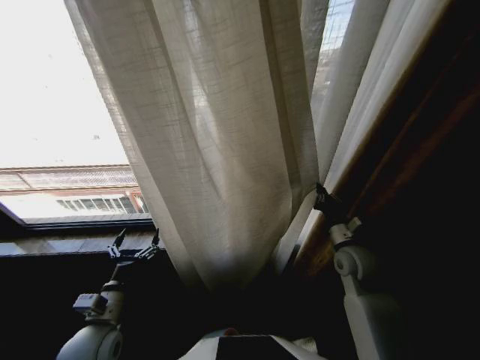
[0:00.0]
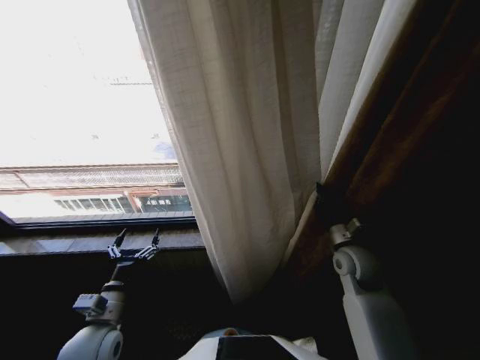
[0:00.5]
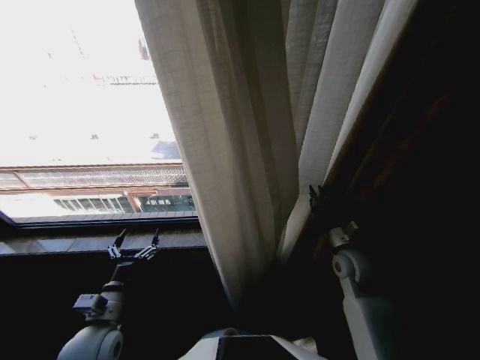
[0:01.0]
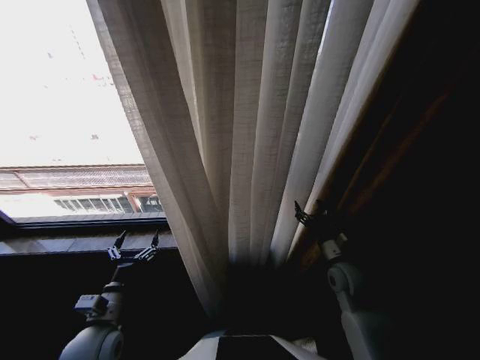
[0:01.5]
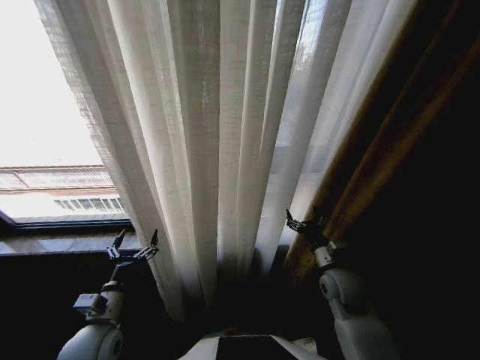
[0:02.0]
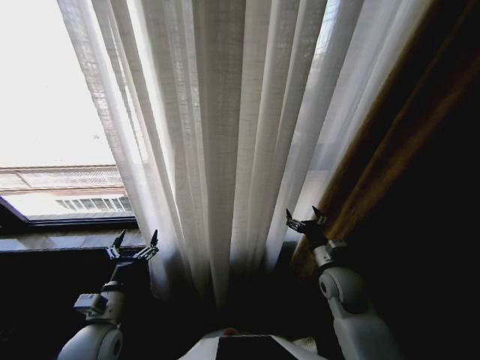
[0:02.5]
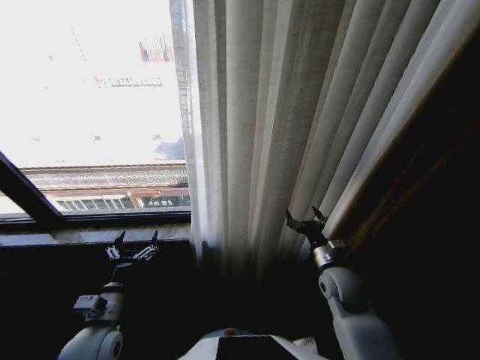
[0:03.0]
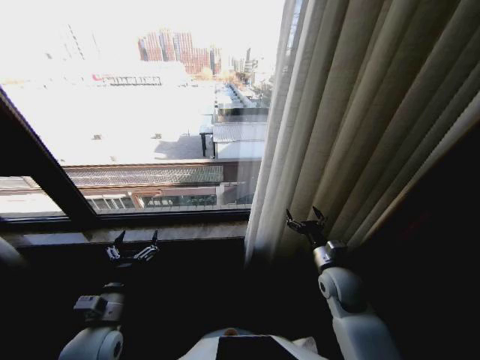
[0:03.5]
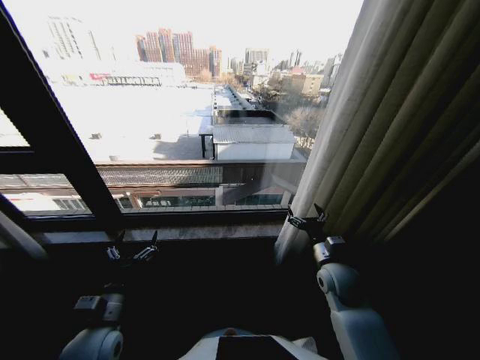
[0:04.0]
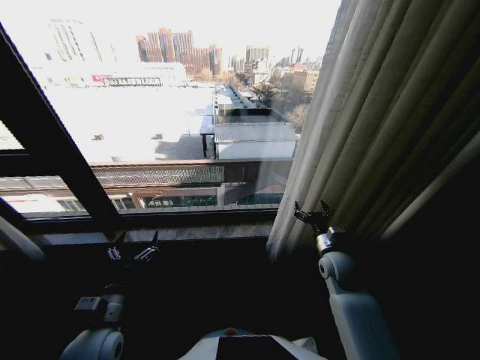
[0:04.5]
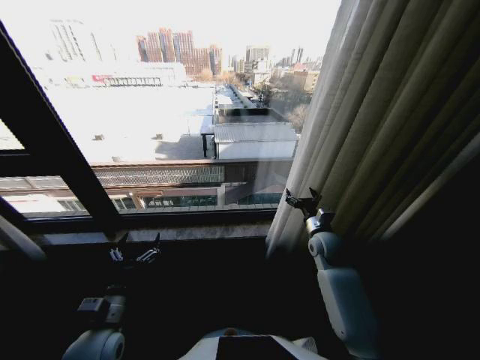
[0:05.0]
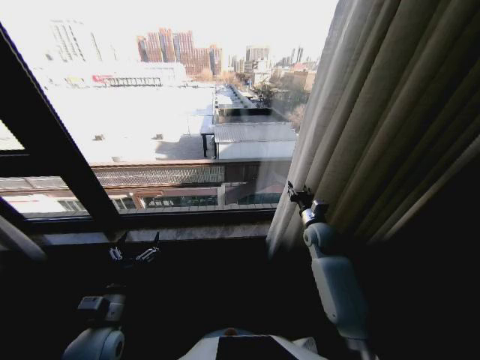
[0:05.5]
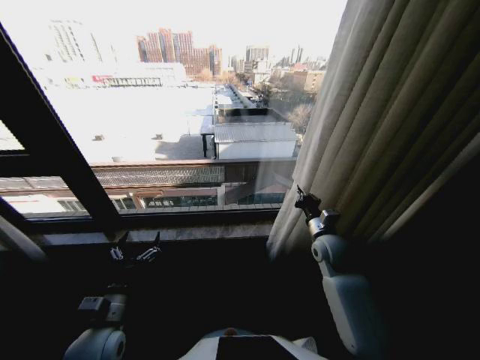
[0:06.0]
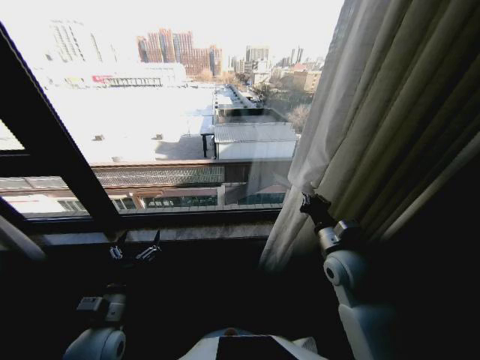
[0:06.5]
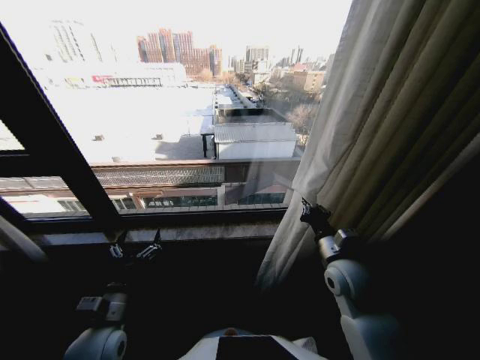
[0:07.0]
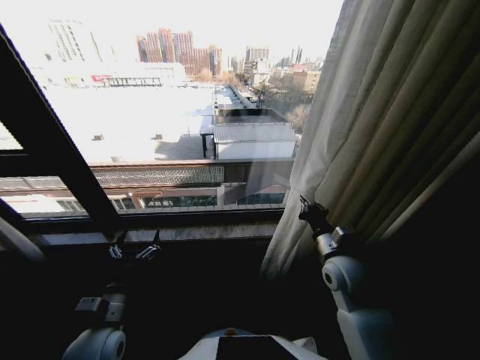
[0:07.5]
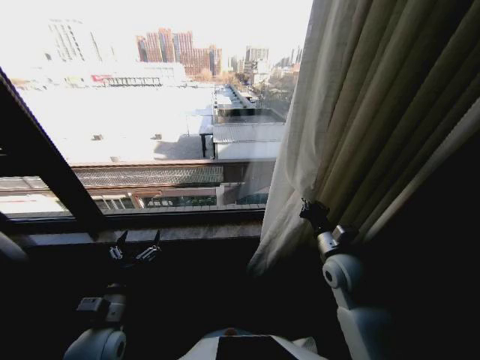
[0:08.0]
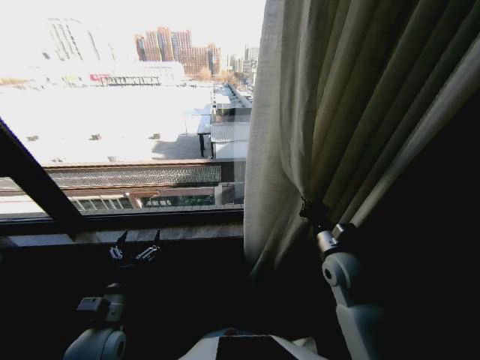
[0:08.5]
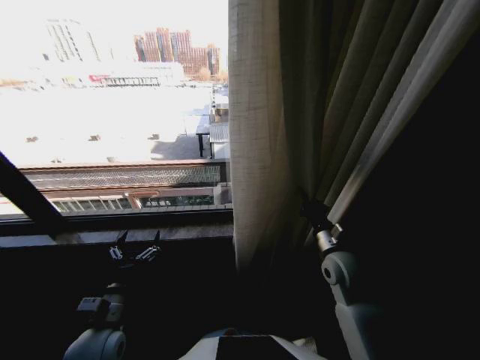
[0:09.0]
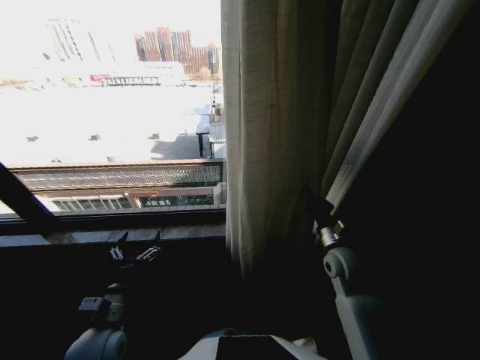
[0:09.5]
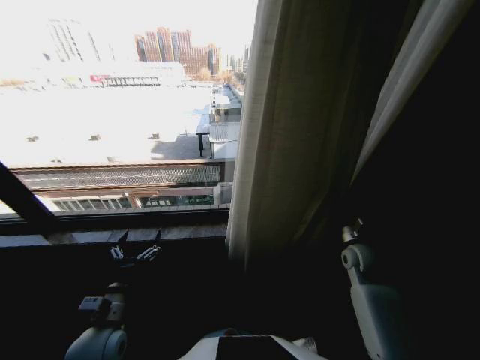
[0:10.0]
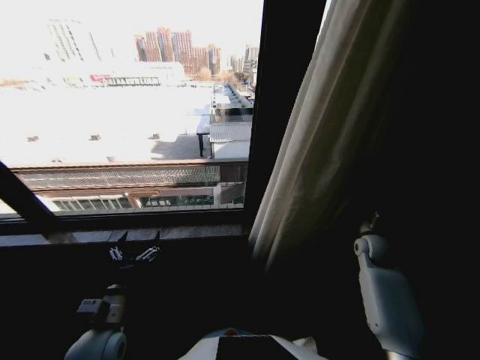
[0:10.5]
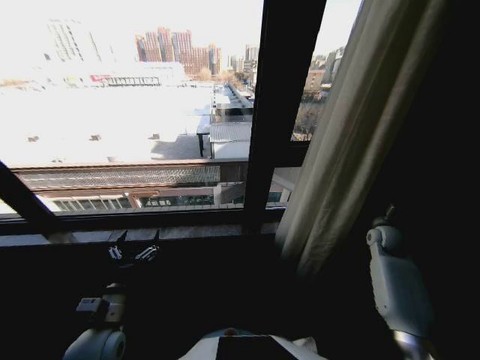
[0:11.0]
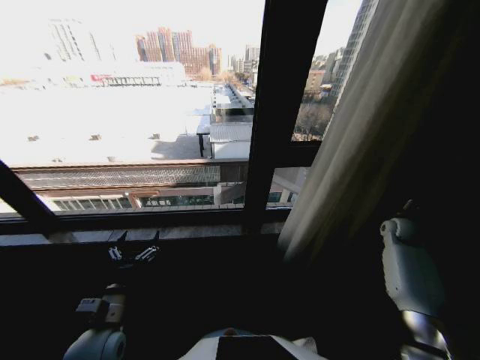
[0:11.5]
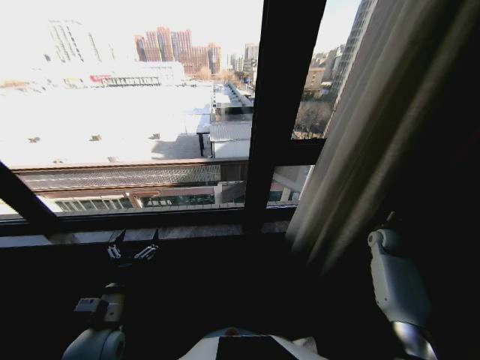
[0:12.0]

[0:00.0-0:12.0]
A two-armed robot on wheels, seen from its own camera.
Task of the whole recording: Open the curtains by pulling them apart, changing their state from closed to fully open.
0:00.0 to 0:02.0: The right gripper moves downward, roughly 5 cm, and opens up.
0:04.0 to 0:06.0: The right gripper moves forward, roughly 10 cm, and closes.
0:06.0 to 0:08.0: The right gripper moves backward, about 10 cm.
0:08.0 to 0:10.0: The right gripper goes some 10 cm to the right.
0:10.0 to 0:12.0: The right gripper goes roughly 20 cm to the right and forward.

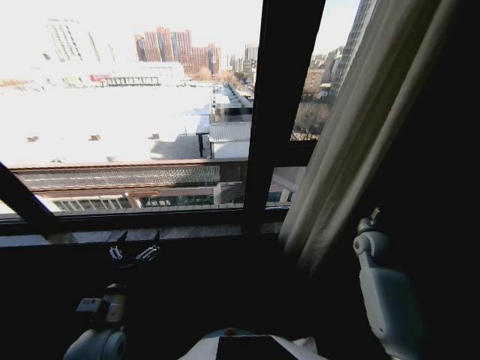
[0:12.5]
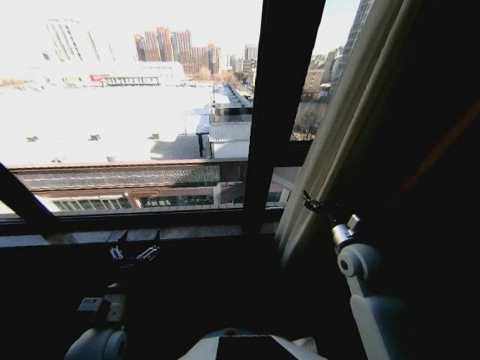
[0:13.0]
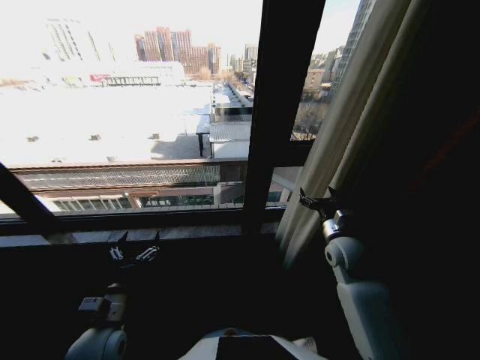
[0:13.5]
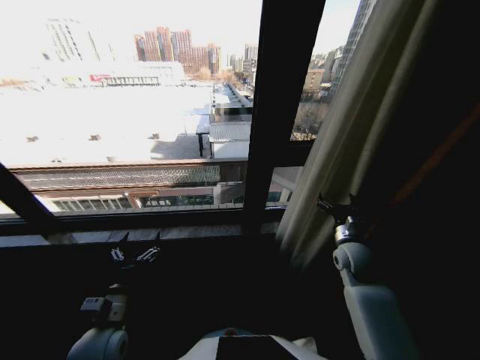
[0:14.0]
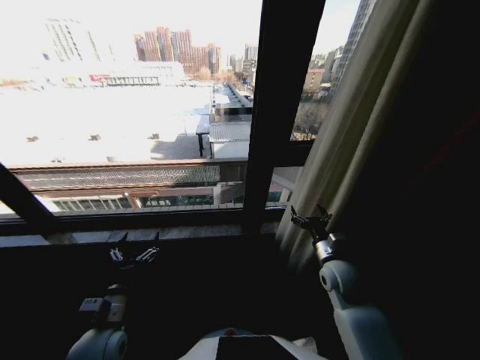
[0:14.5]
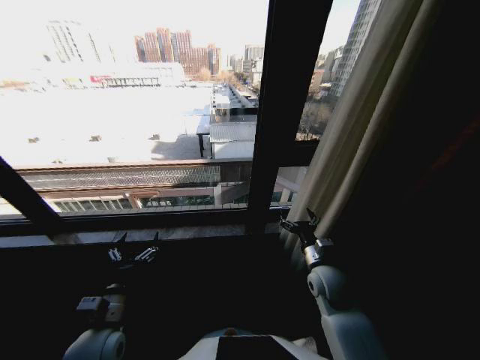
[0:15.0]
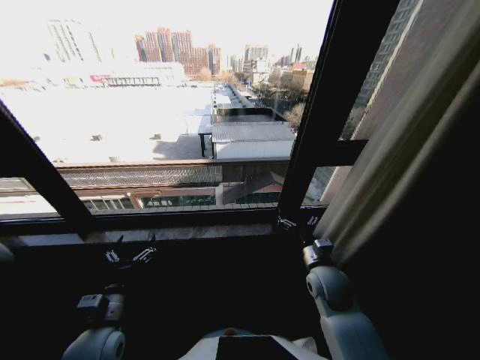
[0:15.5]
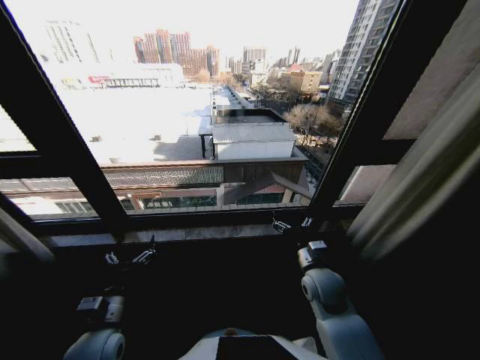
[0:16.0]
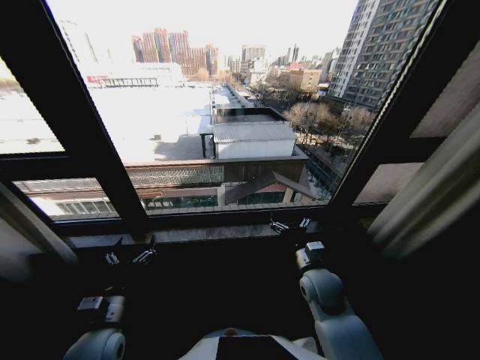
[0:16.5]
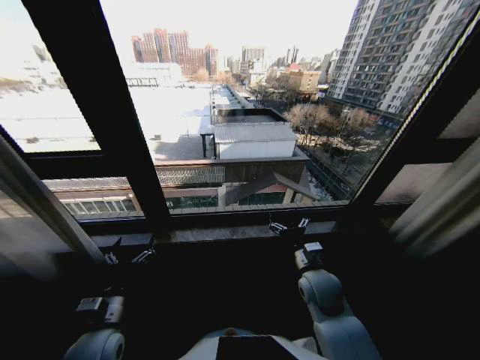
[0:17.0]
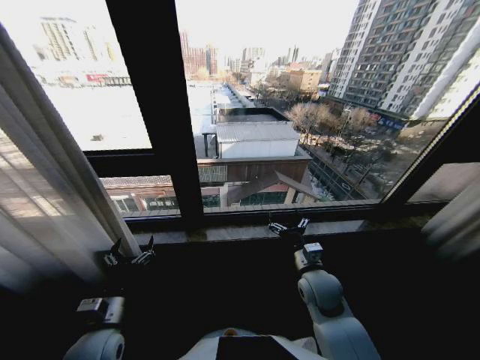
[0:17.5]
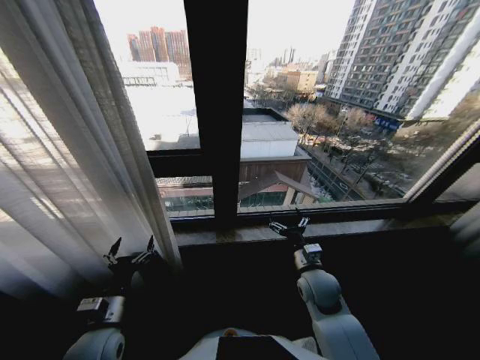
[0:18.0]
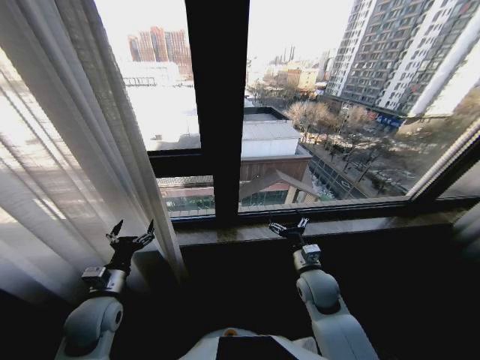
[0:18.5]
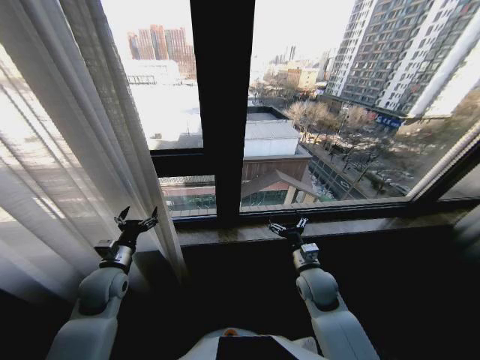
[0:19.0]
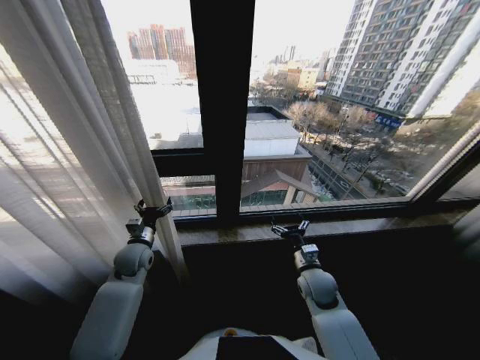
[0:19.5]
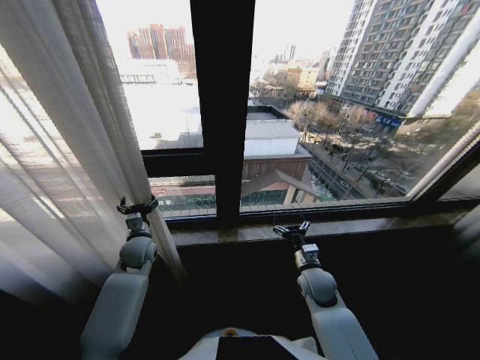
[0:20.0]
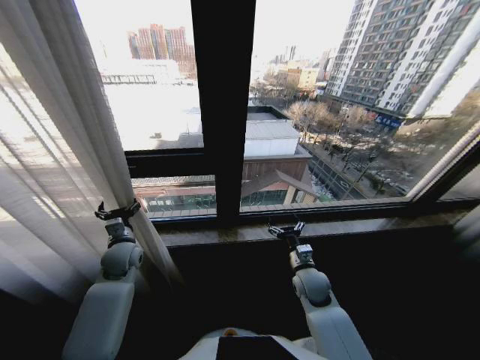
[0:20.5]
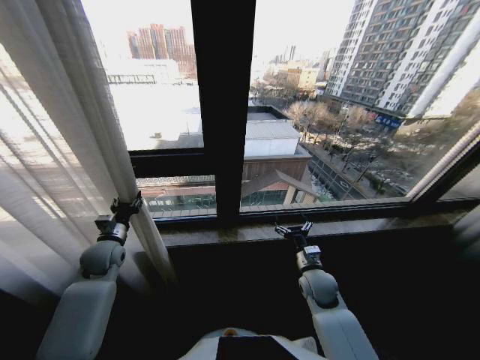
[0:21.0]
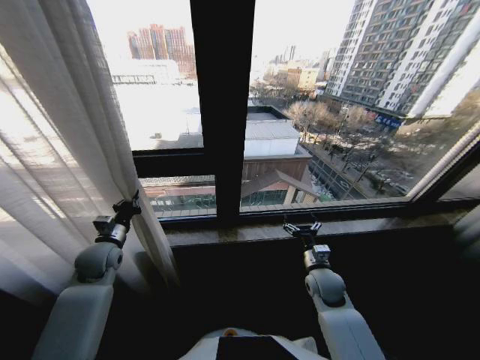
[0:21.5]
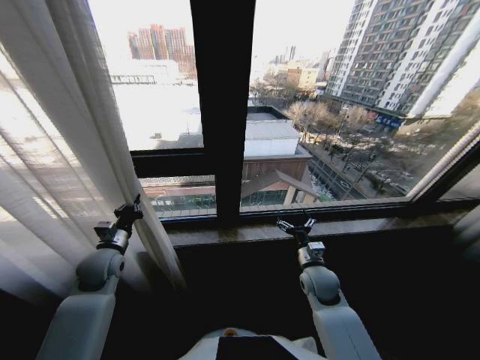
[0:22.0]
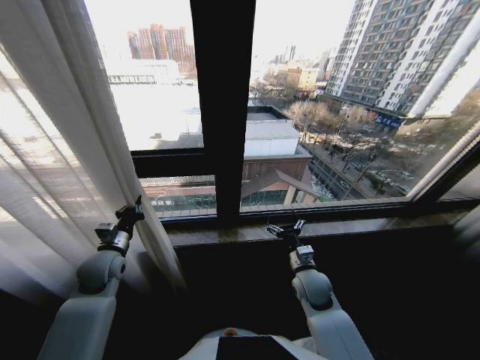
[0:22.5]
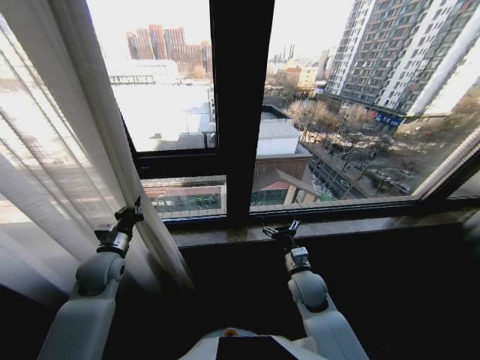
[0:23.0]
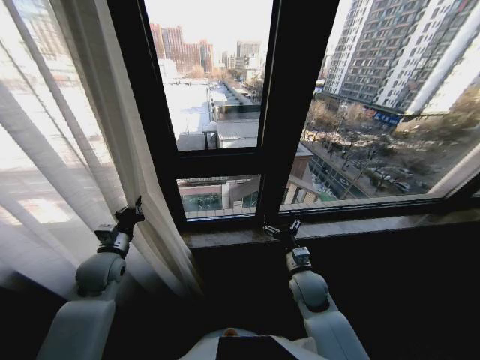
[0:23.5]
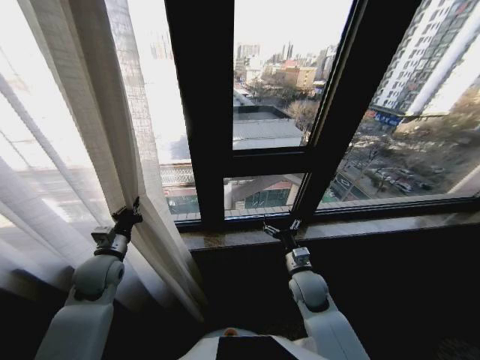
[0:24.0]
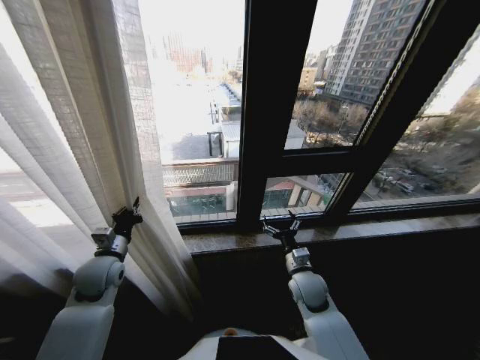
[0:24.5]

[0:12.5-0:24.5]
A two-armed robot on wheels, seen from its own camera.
Task of the whole recording: Open the curtains by pulling them apart, changing their state from closed to fully open.
0:12.5 to 0:14.5: The right gripper heads to the left and backward, covering roughly 15 cm, and opens its fingers.
0:14.5 to 0:16.5: The right gripper heads to the left, covering approximately 5 cm.
0:16.5 to 0:18.5: The left gripper changes place by about 5 cm.
0:18.5 to 0:20.5: The left gripper heads forward, covering approximately 15 cm.
0:20.5 to 0:22.5: The left gripper changes place by approximately 5 cm, and closes its fingers.

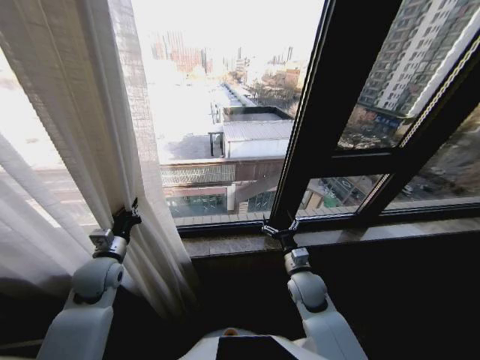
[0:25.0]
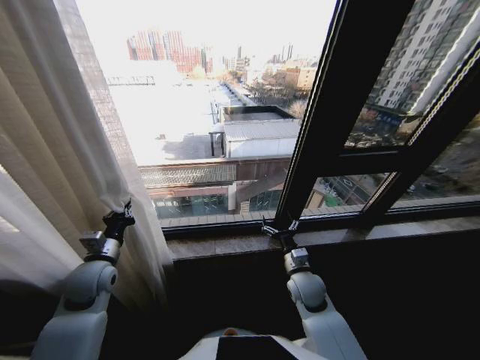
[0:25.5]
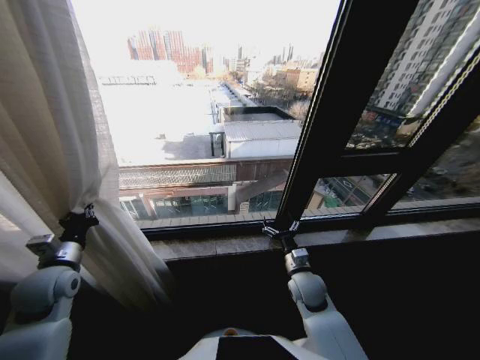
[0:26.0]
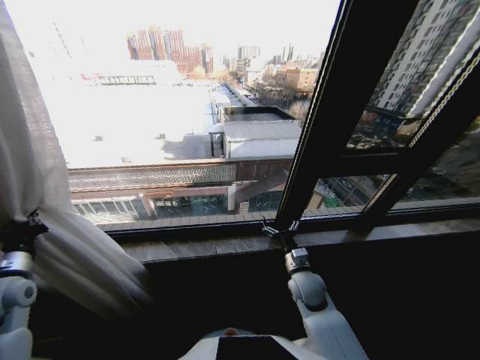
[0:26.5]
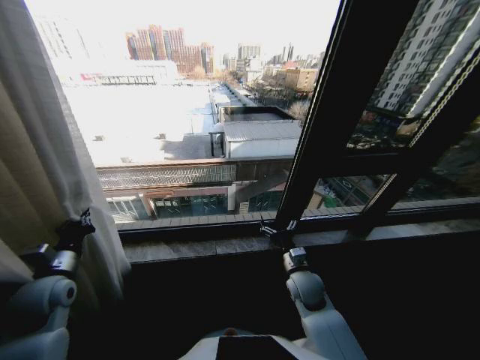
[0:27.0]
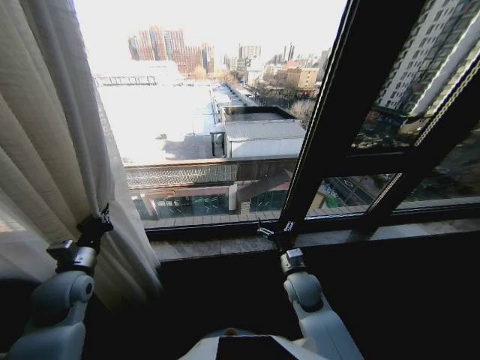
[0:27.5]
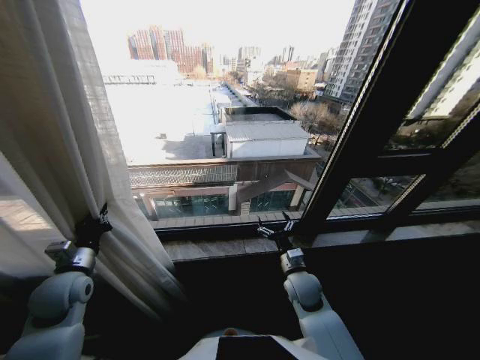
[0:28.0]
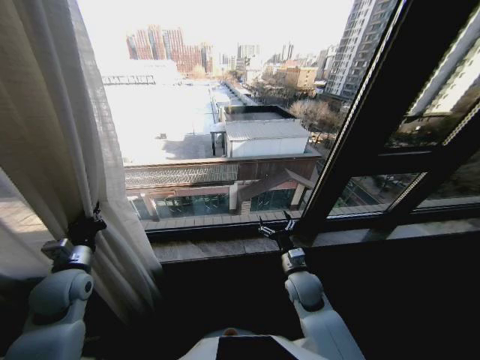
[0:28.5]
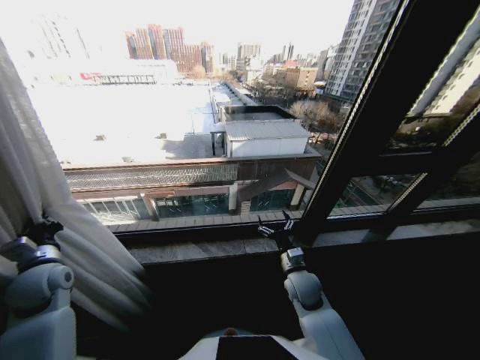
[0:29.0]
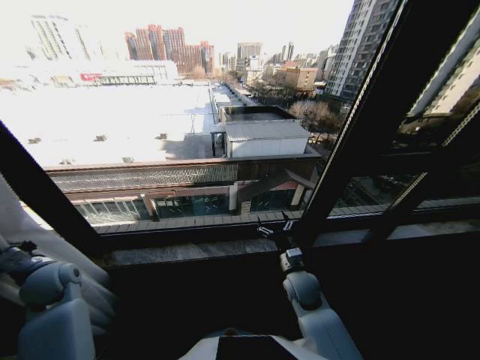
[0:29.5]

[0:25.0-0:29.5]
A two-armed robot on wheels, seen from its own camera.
Task of the whole recording: Open the curtains by pulling them apart, changing their state from closed to fully open.
0:25.0 to 0:27.0: The left gripper travels to the left and backward by some 10 cm.
0:27.0 to 0:29.5: The left gripper shifts by approximately 5 cm.
